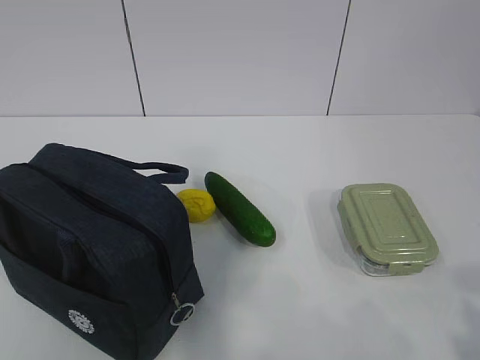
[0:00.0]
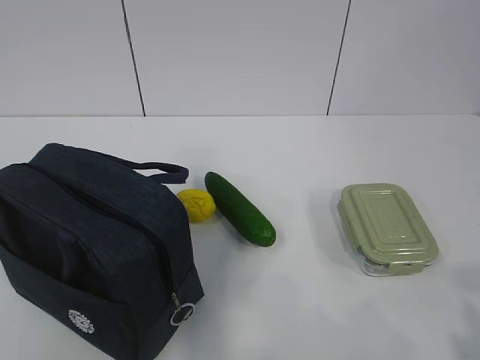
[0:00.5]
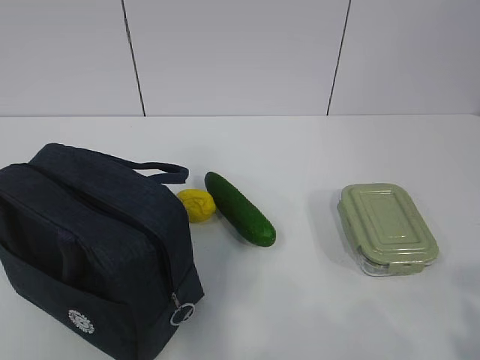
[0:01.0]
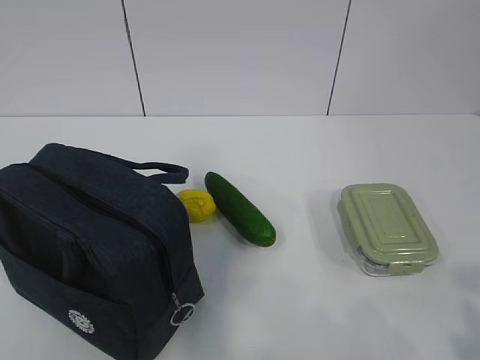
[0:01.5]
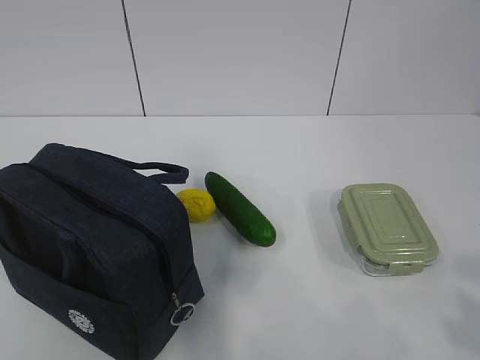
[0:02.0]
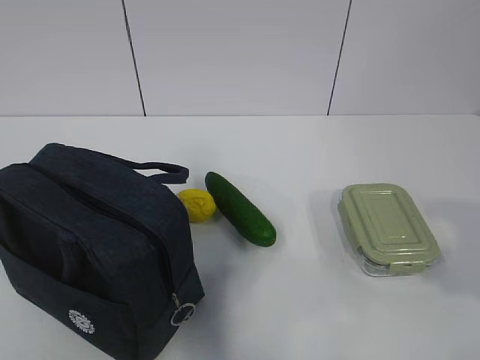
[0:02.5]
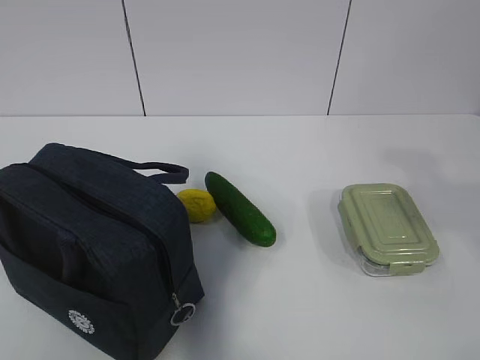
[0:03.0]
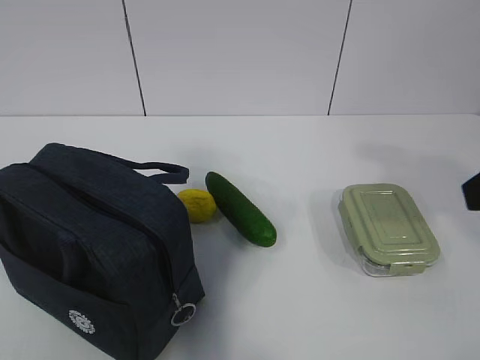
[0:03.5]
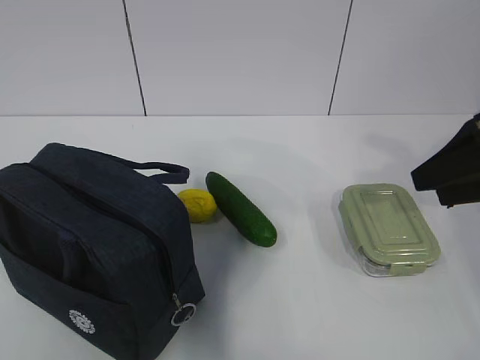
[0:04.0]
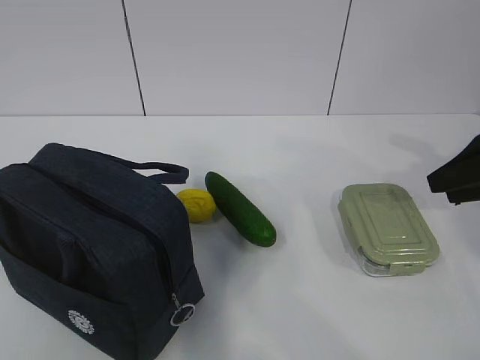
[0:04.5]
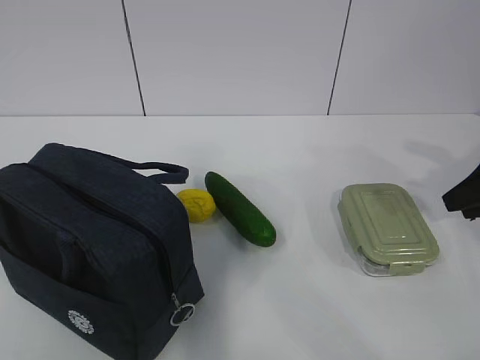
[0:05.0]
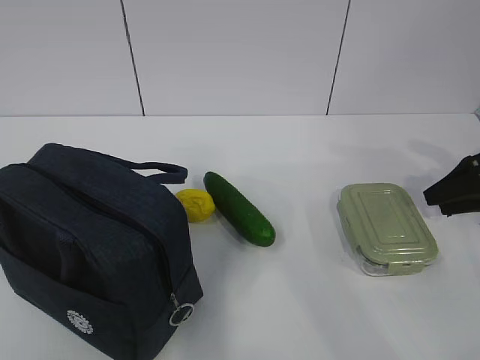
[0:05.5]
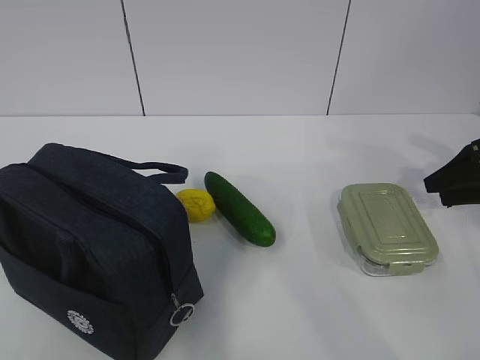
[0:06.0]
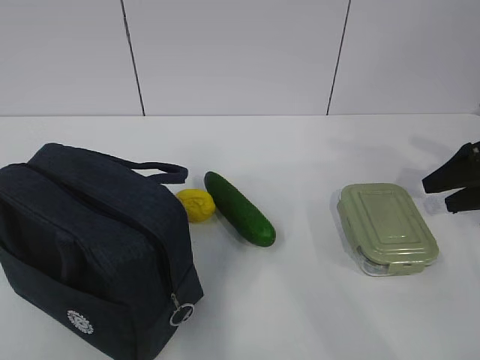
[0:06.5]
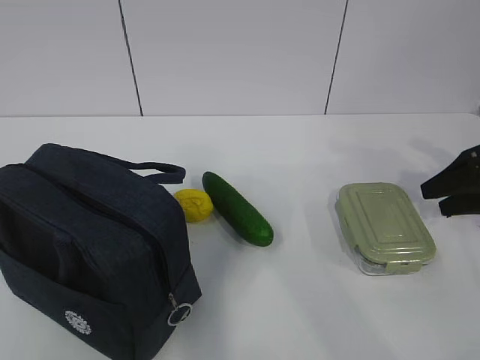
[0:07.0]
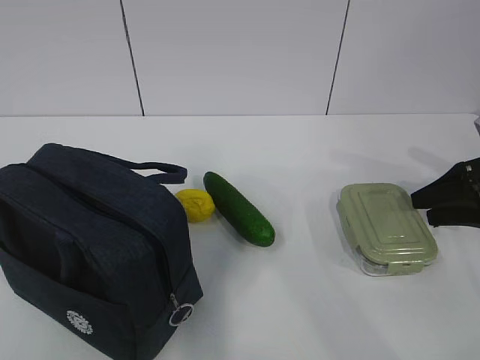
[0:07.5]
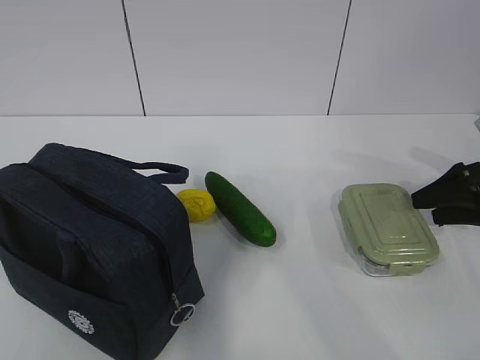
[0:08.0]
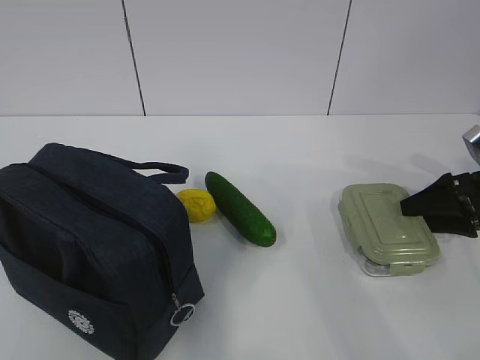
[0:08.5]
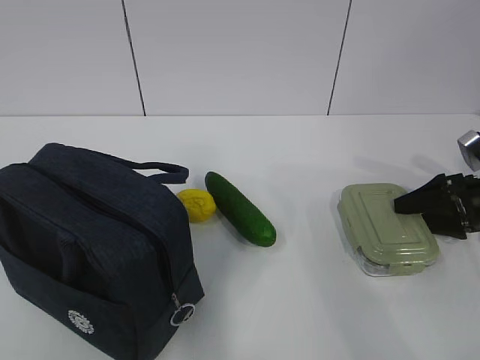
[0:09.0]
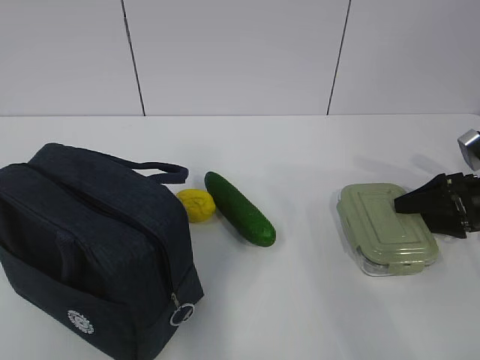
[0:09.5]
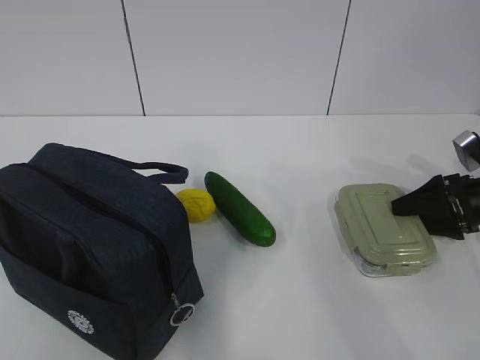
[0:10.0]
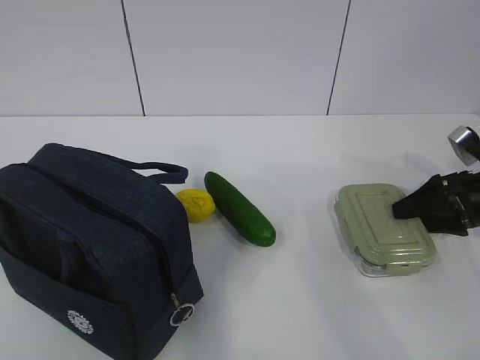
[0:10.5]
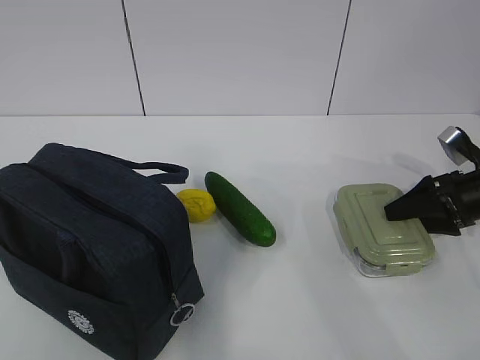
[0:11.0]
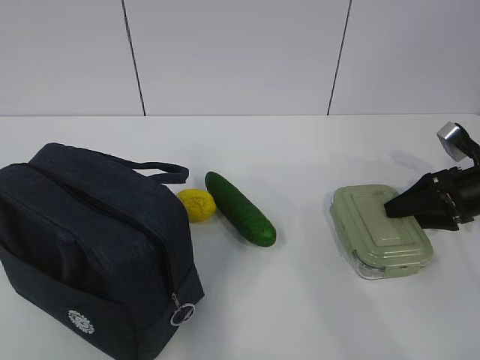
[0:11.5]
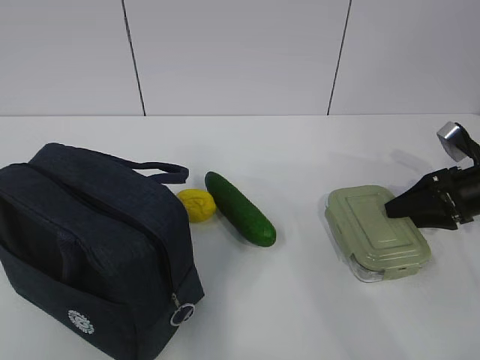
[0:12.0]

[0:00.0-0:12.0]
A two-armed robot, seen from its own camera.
Step, 0.0 to 11.0 s: Grab the lunch box with your right hand.
2.0 to 4.0 s: The right gripper moves forward, roughly 25 cm.
4.0 to 6.0 s: The right gripper moves downward, to the right and forward, about 15 cm.
6.0 to 8.0 s: The grippers make only small movements.
8.0 to 10.0 s: The right gripper moves roughly 5 cm.
10.0 to 12.0 s: There are only small adjustments of the grippers.

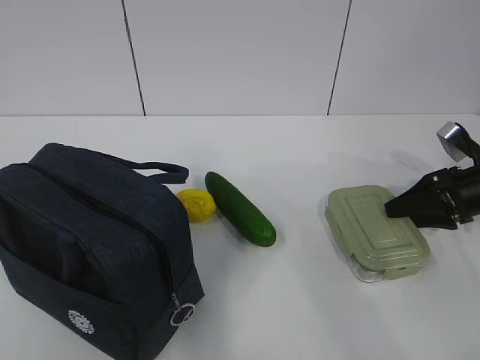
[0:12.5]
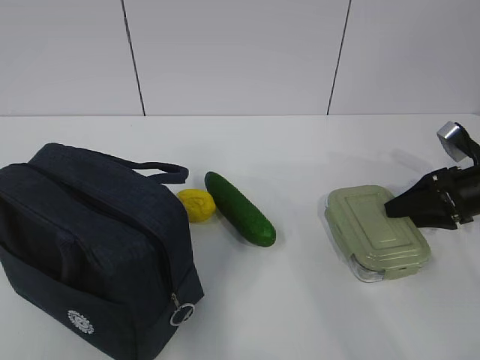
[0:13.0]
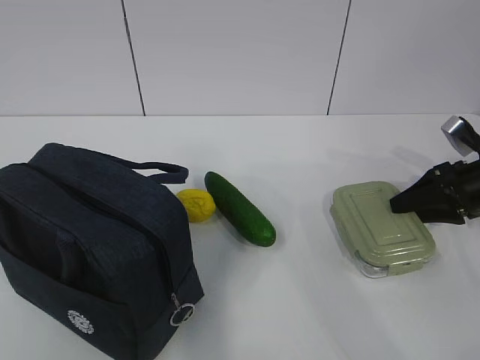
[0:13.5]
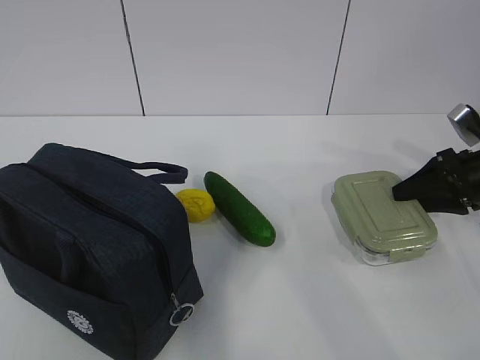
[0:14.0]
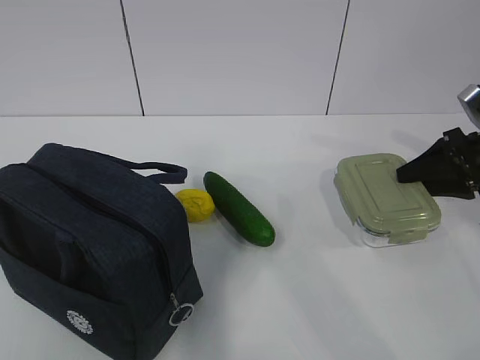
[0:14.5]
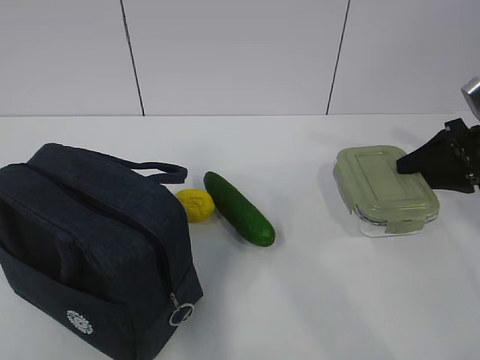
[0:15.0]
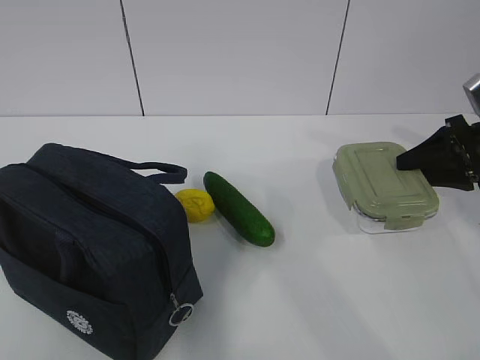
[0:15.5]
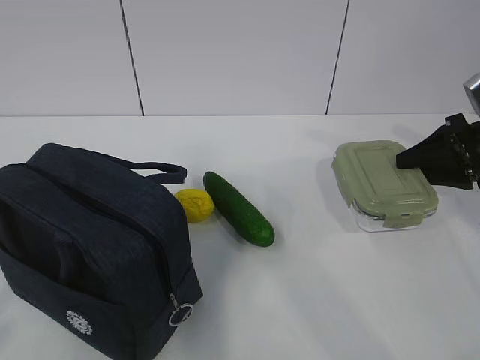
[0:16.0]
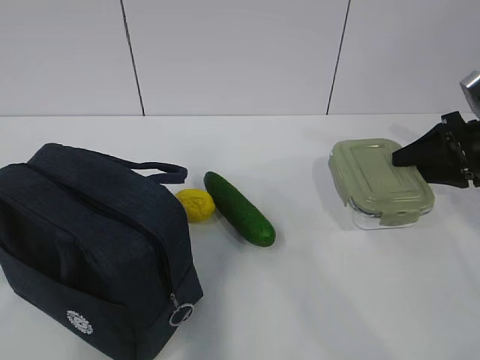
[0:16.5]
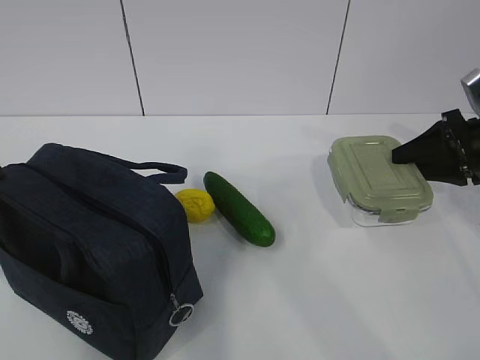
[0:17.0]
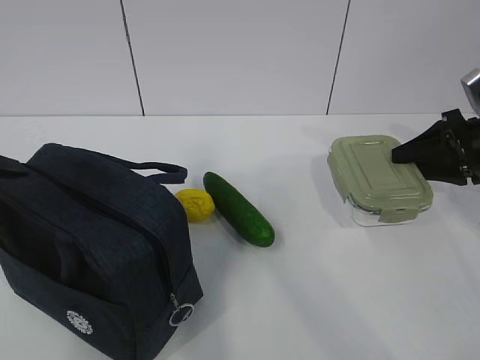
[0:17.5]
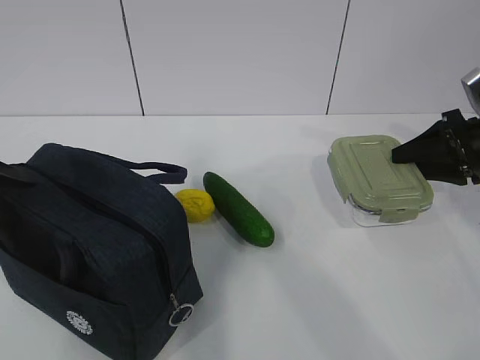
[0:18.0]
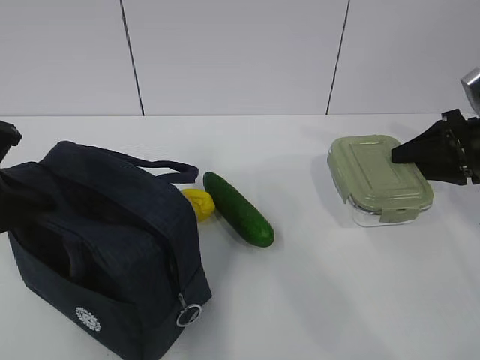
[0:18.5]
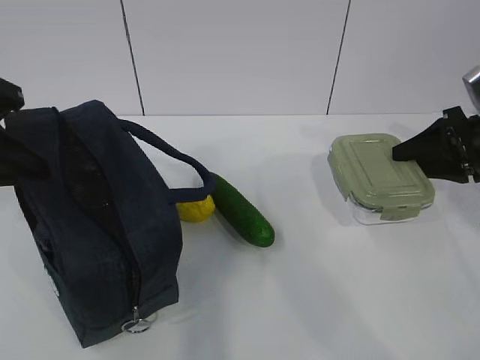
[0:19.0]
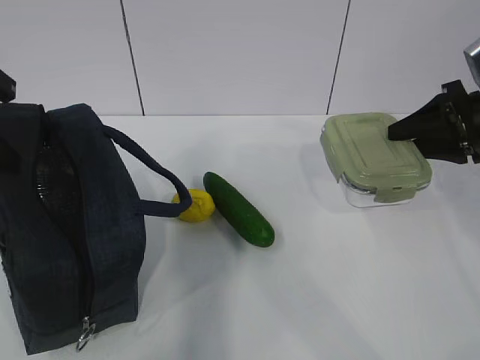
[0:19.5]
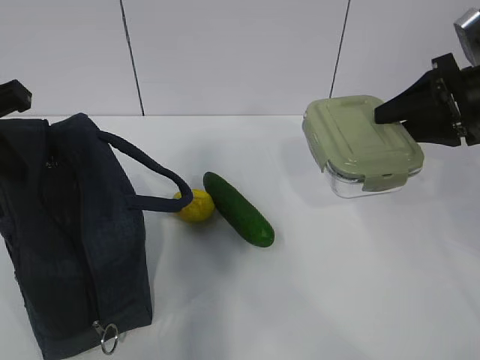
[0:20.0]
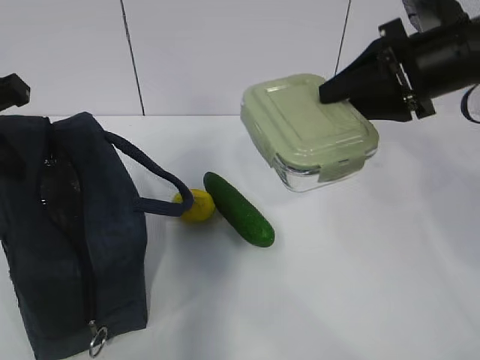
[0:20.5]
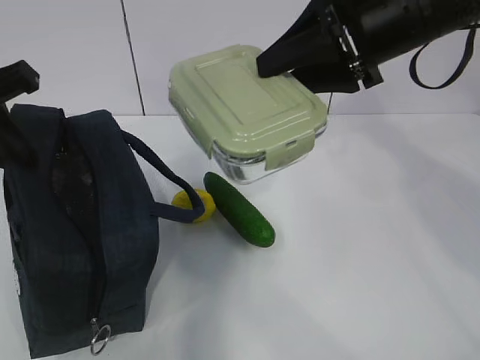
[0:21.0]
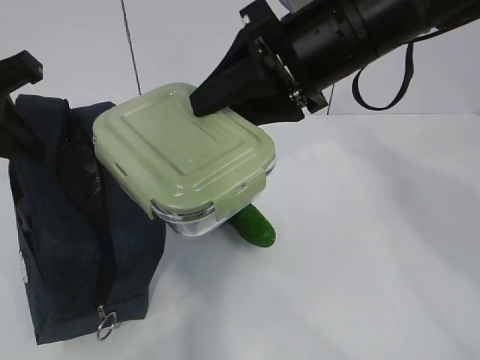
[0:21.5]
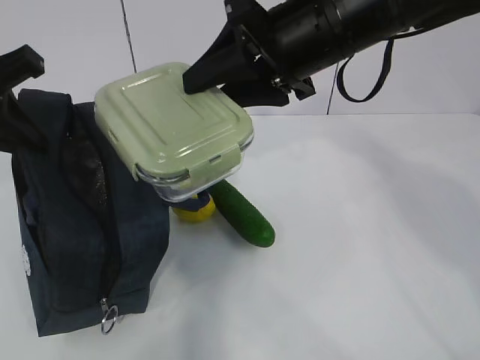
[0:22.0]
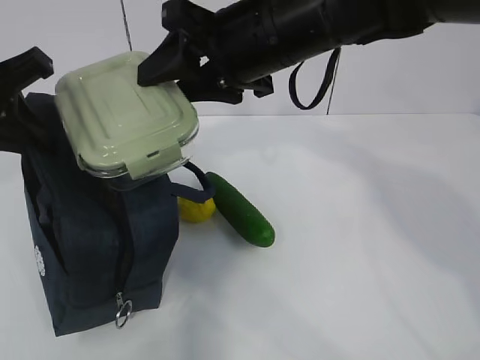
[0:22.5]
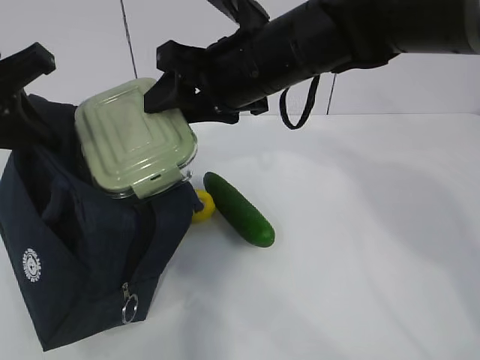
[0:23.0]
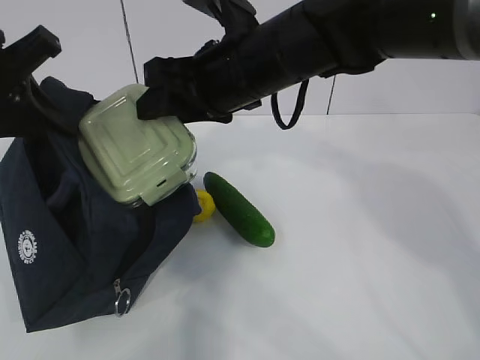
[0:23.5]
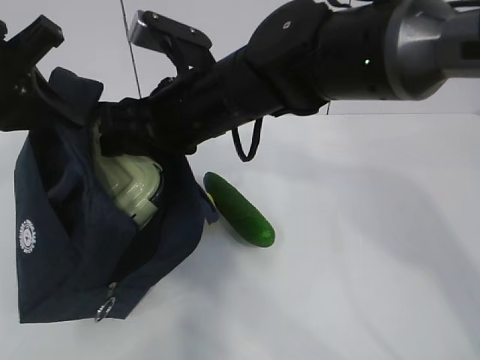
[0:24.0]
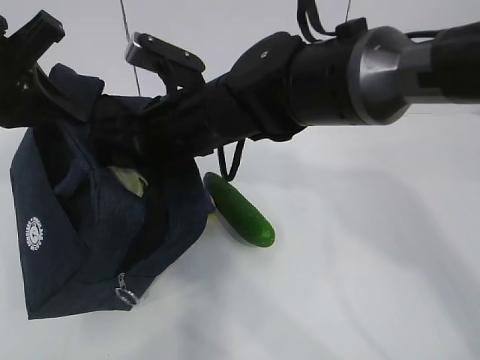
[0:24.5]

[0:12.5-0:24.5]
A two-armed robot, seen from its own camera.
Step, 12.5 to 18.5 s: Grab the lunch bag with your left hand.
Step, 19.0 to 21.0 s: Place it into the bag with your right hand.
12.5 to 14.5 s: The right gripper is displaced upward by approximately 5 cm.
16.5 to 18.5 s: The left gripper travels forward and downward by approximately 15 cm, and closes.
18.5 to 20.5 s: The right gripper travels to the left and upward by some 15 cm. The left gripper heads upward and forward, covering some 10 cm.
20.5 to 22.5 s: The right gripper heads to the left, covering approximately 20 cm.
22.5 to 24.5 s: The right gripper is displaced downward and to the left by roughly 10 cm.

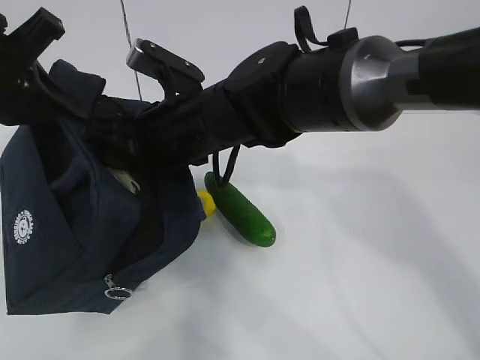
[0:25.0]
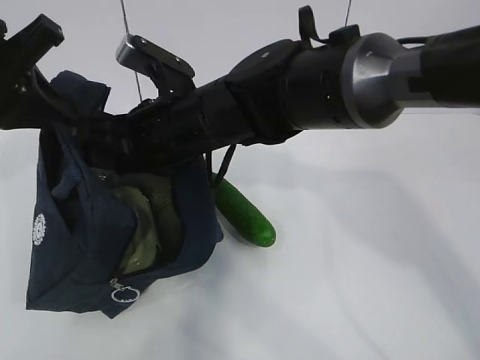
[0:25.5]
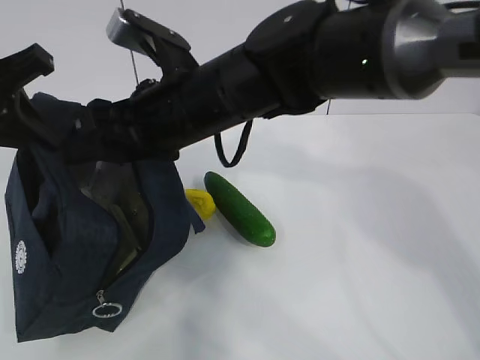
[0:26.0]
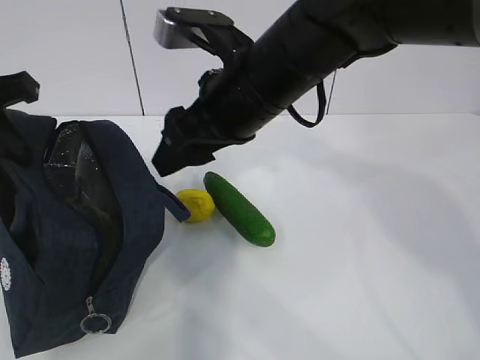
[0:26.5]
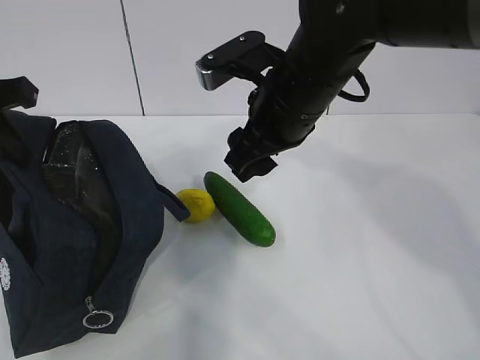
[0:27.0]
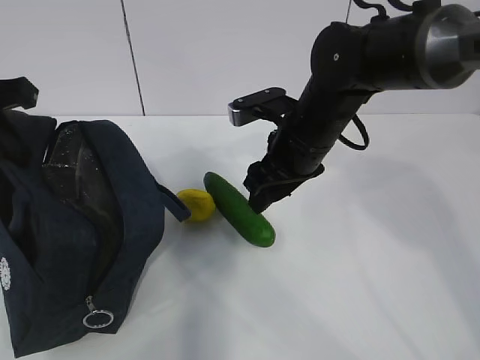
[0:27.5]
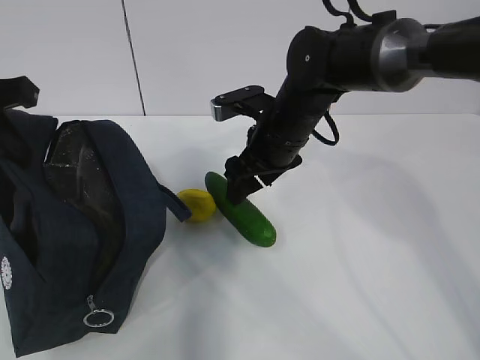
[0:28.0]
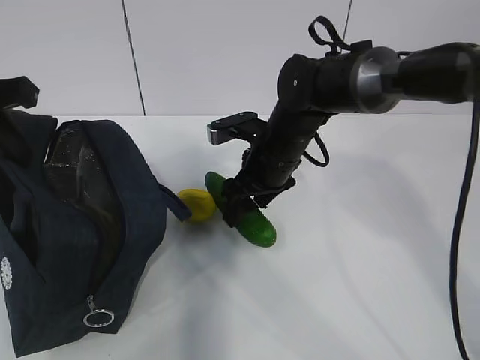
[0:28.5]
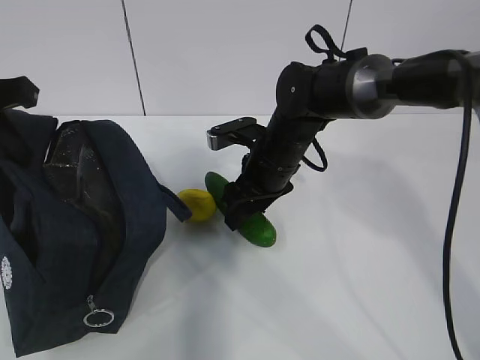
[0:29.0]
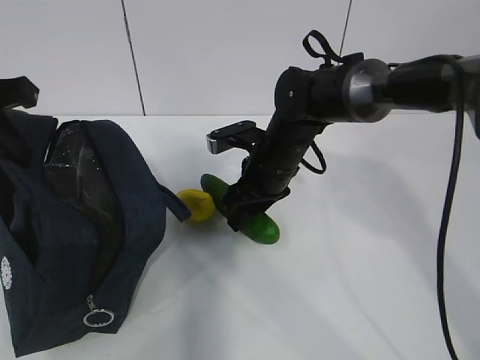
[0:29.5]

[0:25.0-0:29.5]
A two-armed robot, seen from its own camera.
Step, 25.0 to 26.5 s: Place it into the bag with your right hand.
25.0 to 27.0 s: The right gripper goes roughly 10 cm to the right.
27.0 to 29.5 s: The right gripper shifts approximately 15 cm downward and forward.
